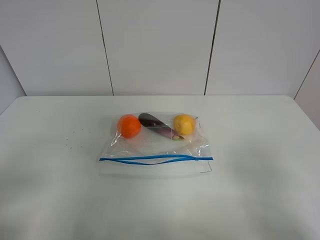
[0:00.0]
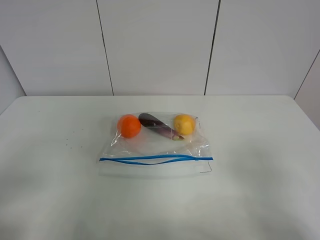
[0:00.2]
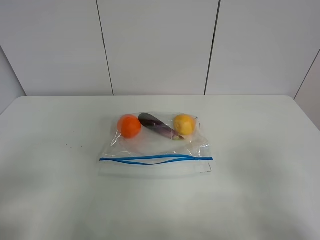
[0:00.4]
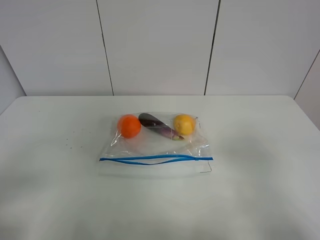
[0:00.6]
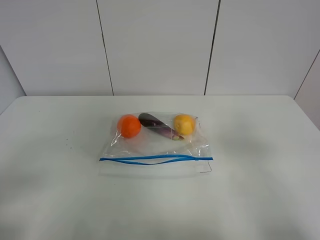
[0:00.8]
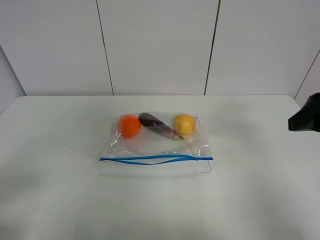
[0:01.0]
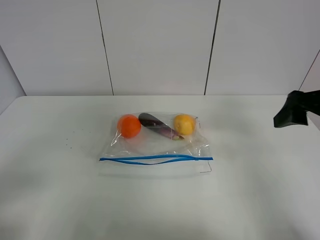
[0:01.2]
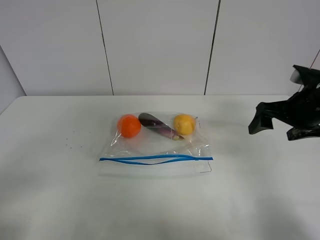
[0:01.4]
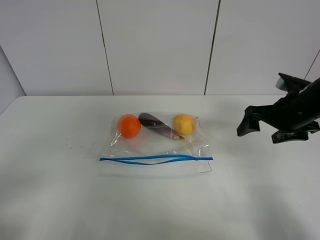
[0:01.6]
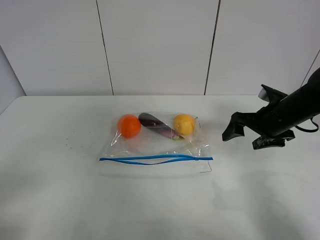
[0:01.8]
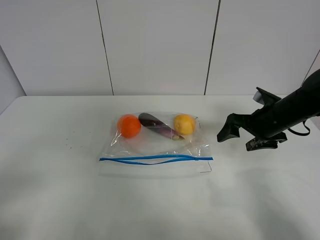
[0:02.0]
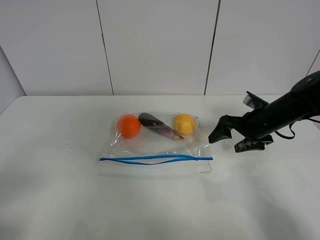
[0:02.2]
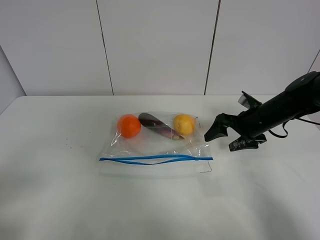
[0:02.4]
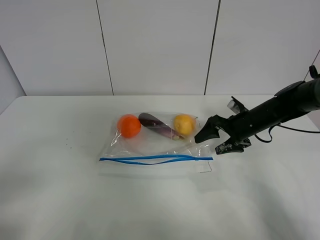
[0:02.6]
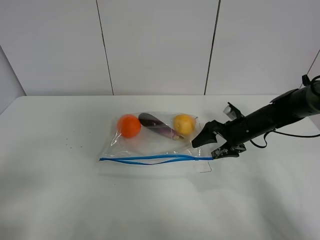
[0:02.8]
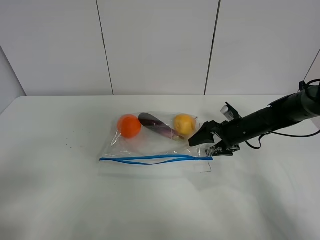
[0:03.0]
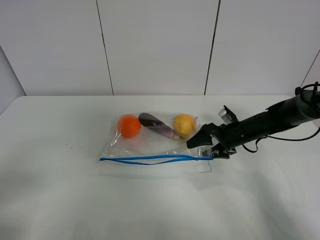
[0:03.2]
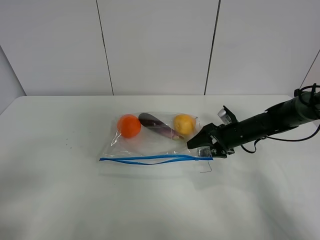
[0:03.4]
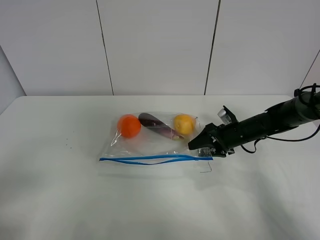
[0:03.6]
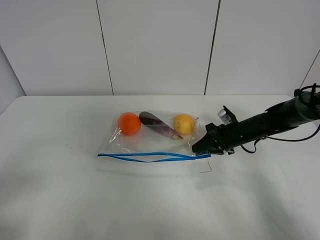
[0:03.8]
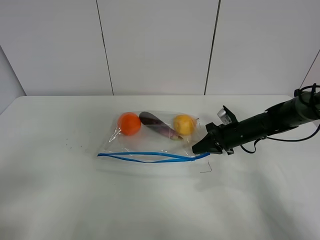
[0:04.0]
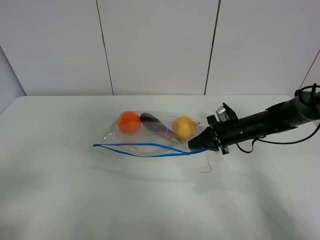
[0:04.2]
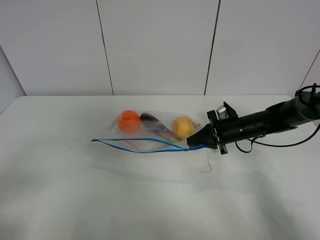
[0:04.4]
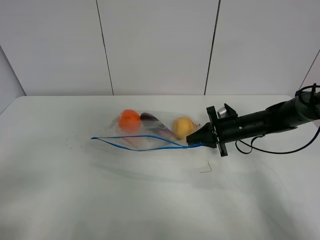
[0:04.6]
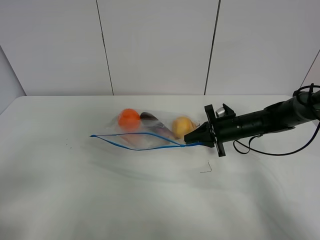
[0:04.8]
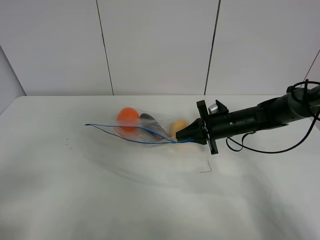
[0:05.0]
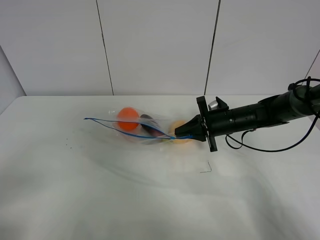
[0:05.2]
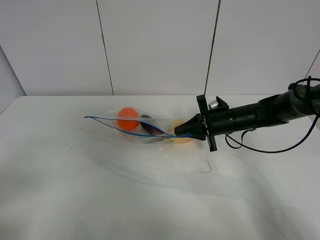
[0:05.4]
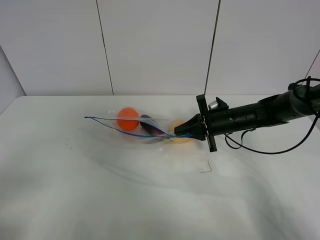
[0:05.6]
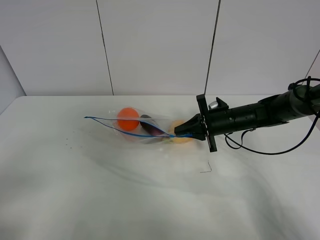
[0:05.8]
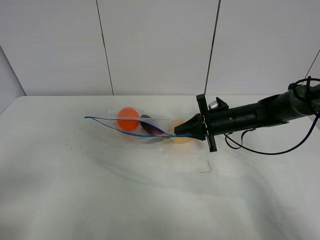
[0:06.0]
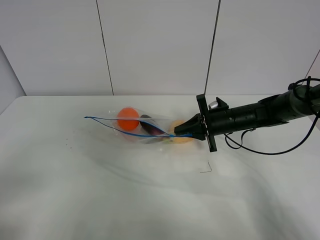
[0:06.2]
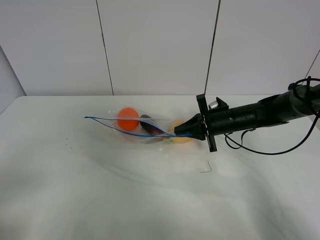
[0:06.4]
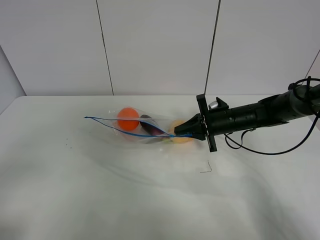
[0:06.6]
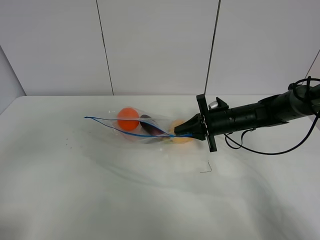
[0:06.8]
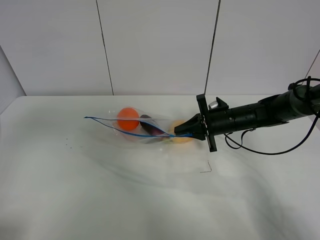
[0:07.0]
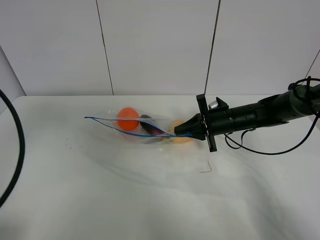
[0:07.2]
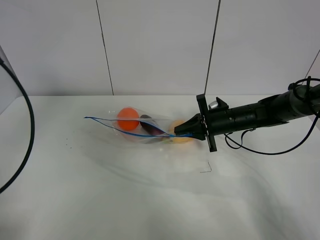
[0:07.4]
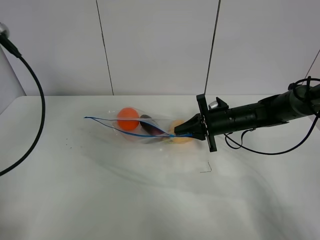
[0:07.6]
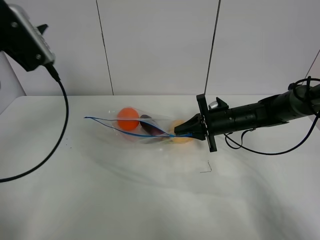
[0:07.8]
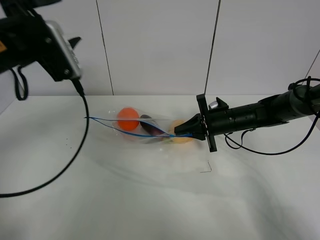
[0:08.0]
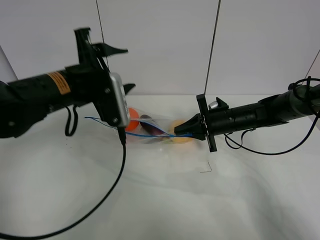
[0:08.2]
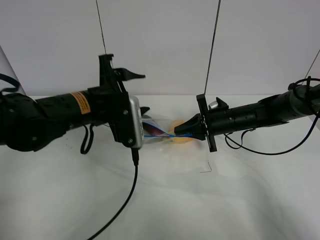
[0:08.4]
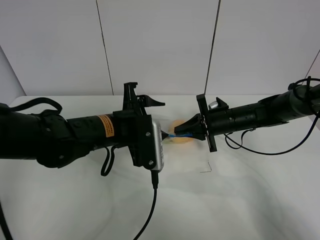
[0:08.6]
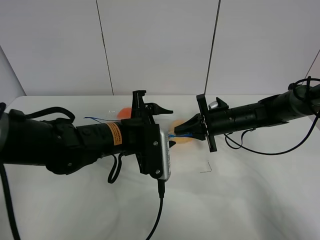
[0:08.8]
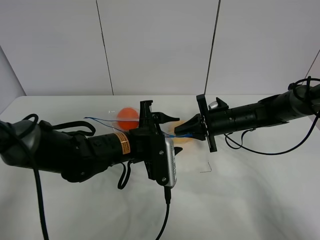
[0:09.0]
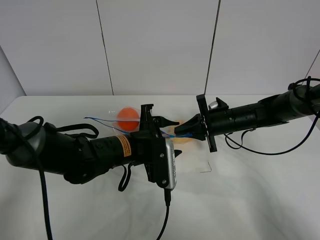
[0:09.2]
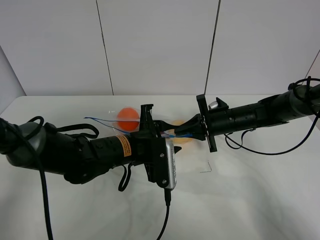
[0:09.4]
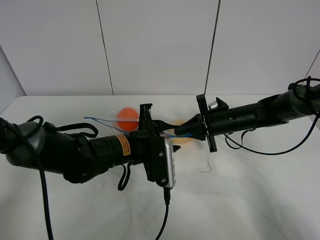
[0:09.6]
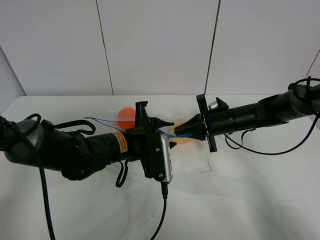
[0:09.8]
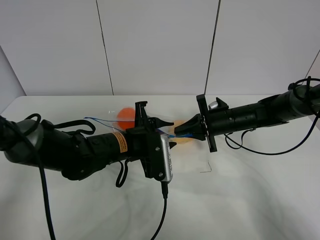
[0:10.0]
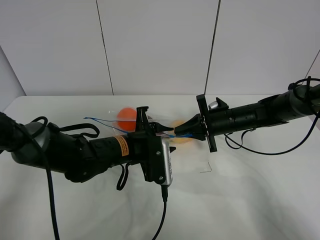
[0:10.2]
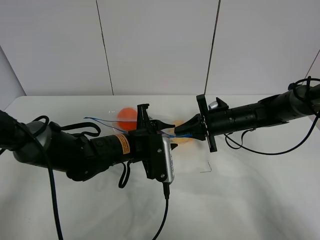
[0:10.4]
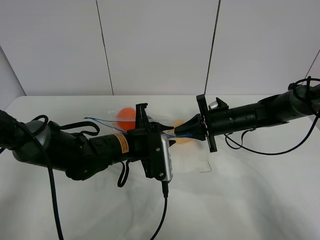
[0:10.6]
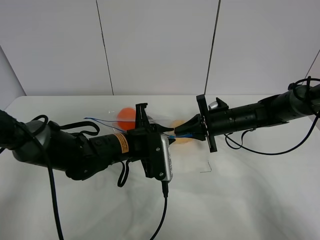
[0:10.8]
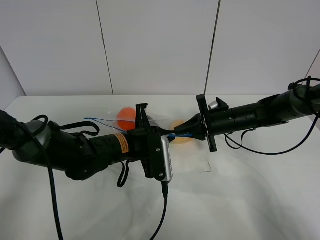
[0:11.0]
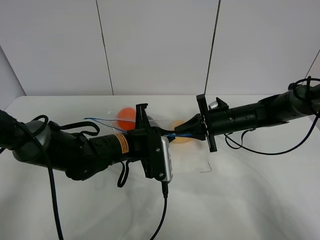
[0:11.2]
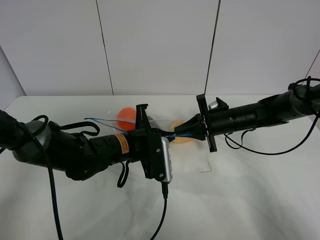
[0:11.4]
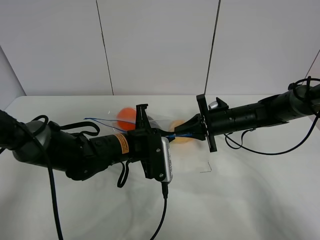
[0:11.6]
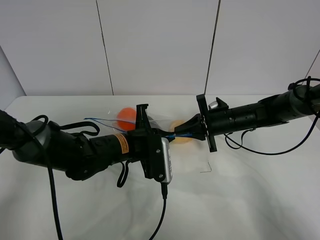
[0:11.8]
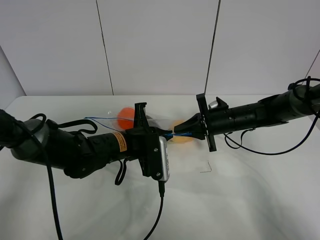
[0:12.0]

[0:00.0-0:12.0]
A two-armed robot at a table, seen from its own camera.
Step, 0:00.0 to 0:04.0: Grasp the fruit bag with right gripper.
Step, 0:04.2 to 0:05.8: Lift the fruit bag with your right gripper.
0:00.0 to 0:01.6: The right gripper is displaced forward by roughly 30 cm.
0:01.6 to 0:03.0: The right gripper moves downward and forward, about 15 cm.
0:03.0 to 0:04.4: The right gripper closes its fingers.
0:04.4 to 0:06.0: The grippers make only small movements.
0:06.0 to 0:07.6: The left gripper goes roughly 25 cm forward and upward.
0:07.6 to 0:09.0: The left gripper goes about 35 cm to the right and downward.
0:09.0 to 0:10.4: The grippers move only a little.
0:10.4 to 0:12.0: The left gripper closes.

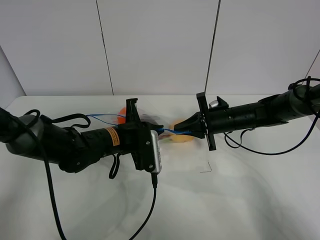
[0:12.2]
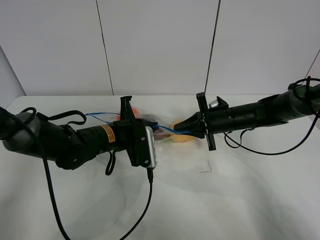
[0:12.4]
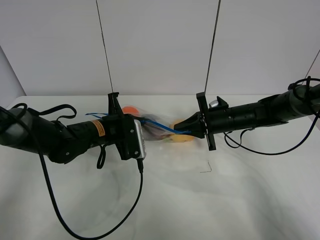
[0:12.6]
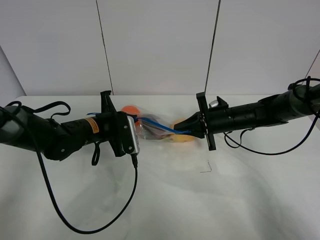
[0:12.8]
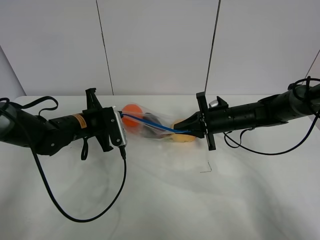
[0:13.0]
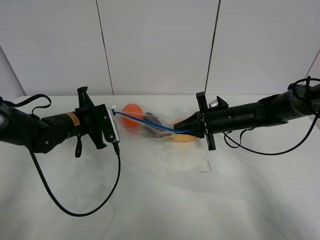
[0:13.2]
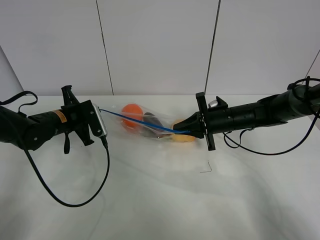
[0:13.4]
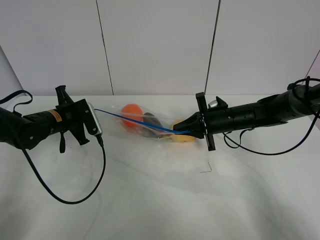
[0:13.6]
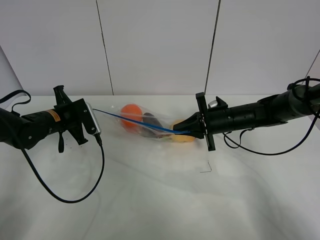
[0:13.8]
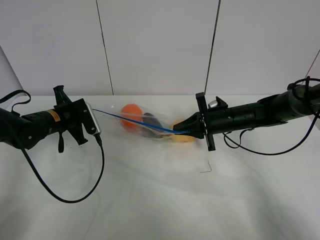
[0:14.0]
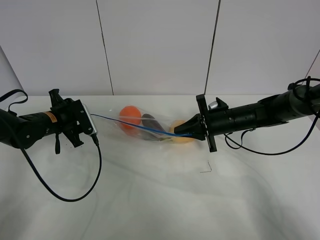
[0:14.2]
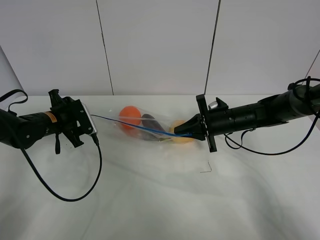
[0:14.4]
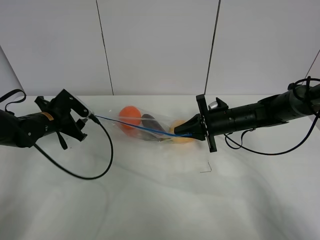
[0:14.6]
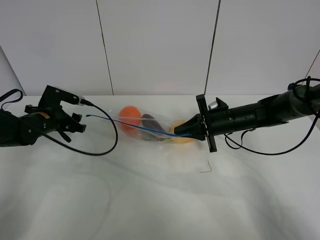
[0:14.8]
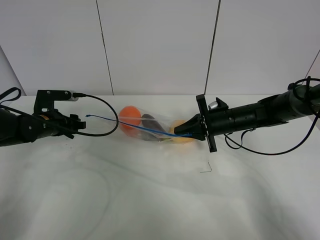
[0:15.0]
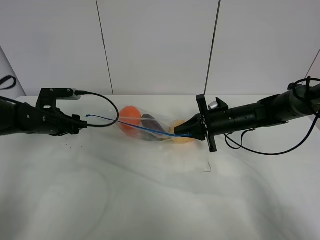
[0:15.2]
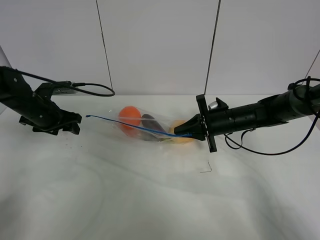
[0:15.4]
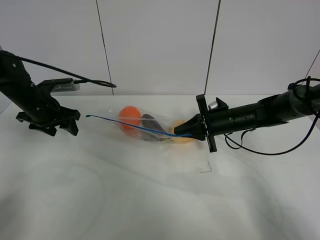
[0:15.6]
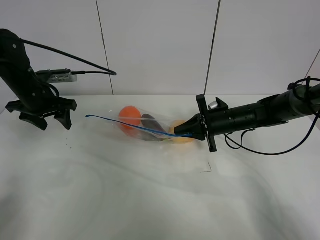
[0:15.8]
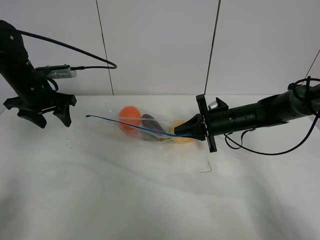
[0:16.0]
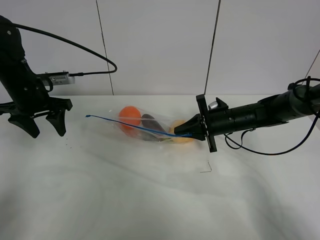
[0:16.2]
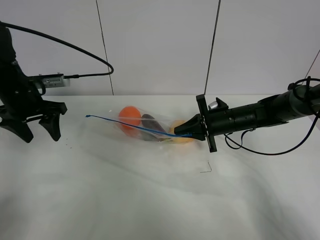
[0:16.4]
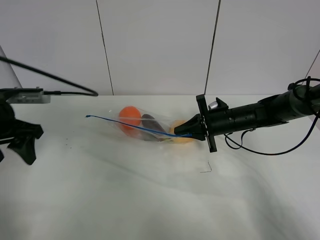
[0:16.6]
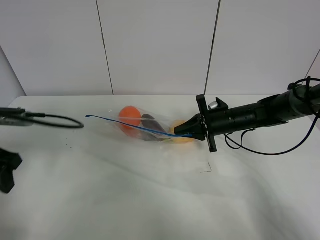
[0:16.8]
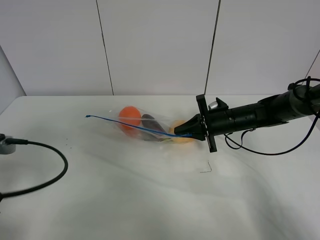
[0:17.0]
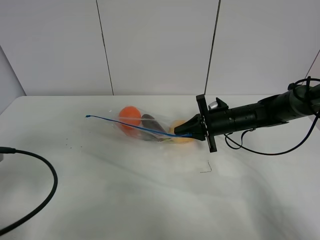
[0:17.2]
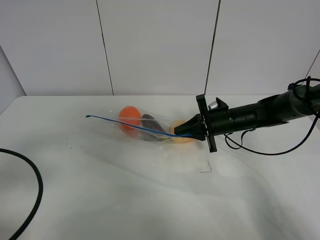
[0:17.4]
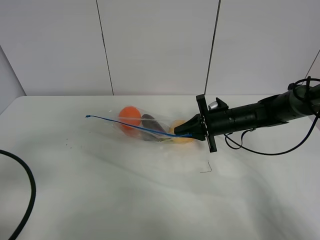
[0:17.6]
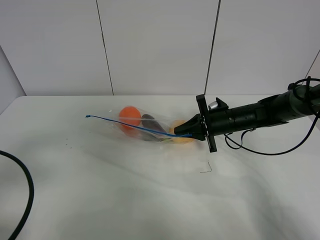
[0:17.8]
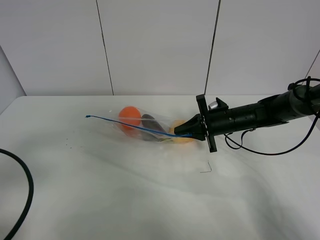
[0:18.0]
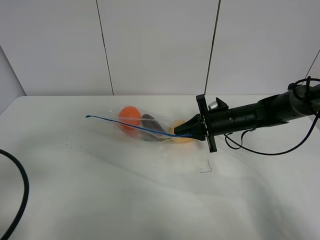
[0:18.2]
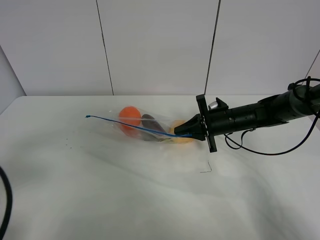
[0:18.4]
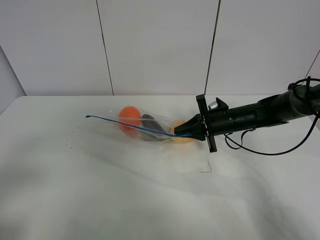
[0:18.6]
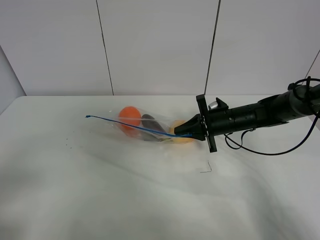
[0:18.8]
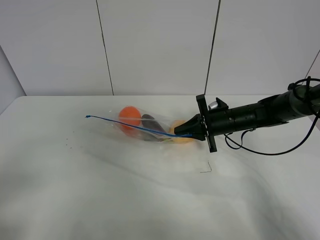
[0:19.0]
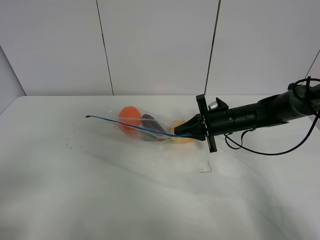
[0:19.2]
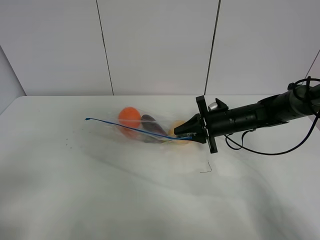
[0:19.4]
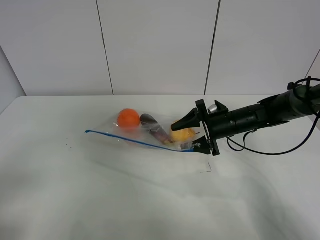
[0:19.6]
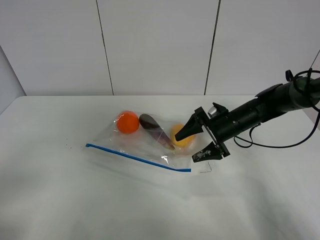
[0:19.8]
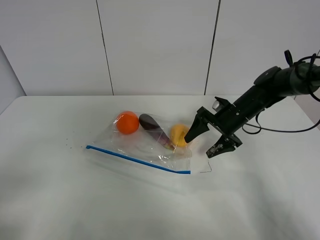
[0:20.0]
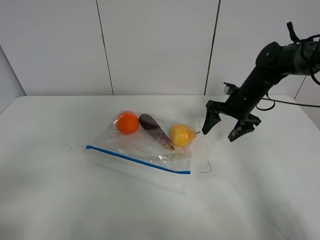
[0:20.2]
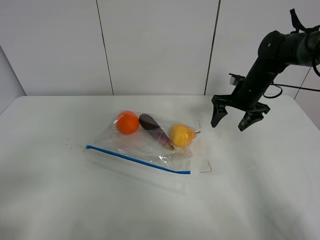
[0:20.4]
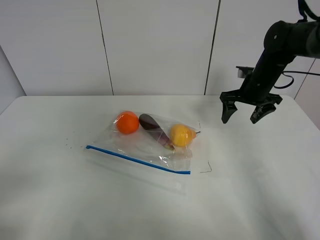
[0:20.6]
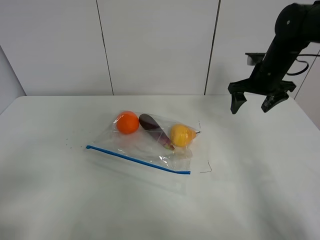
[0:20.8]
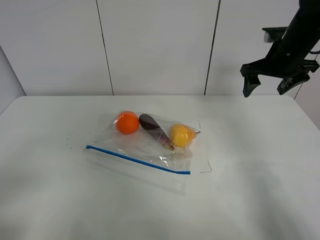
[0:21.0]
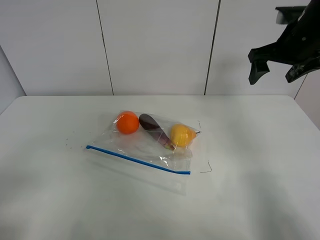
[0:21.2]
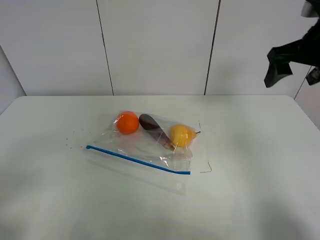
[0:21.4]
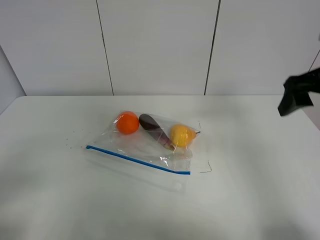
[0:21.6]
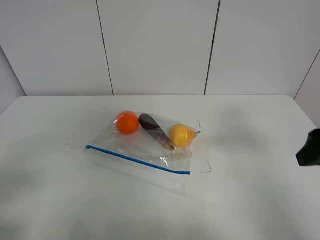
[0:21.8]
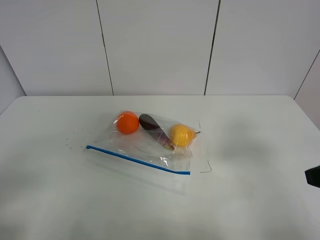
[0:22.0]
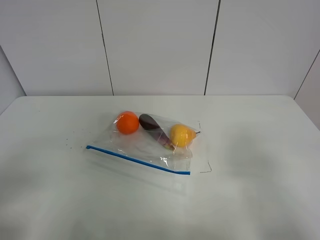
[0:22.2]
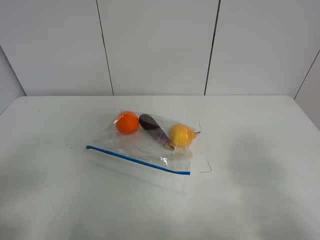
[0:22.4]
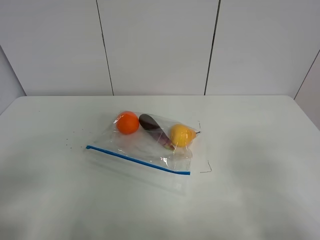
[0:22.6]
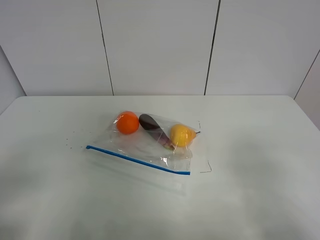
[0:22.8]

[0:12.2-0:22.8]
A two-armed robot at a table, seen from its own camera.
Step, 0:12.2 to 0:14.2: Pull the fruit bag with left gripper.
0:12.2 to 0:13.8: The left gripper goes roughly 15 cm to the left and forward.
0:13.8 to 0:15.2: The left gripper opens its fingers.
0:15.2 to 0:16.8: The left gripper goes roughly 20 cm backward and upward.
0:16.8 to 0:18.2: The left gripper moves backward, roughly 10 cm.
0:18.2 to 0:19.8: The right gripper opens up, while the left gripper moves backward, some 5 cm.
0:19.8 to 0:21.2: The right gripper goes some 20 cm upward.
0:21.2 to 0:22.8: The right gripper heads backward, covering roughly 35 cm.
